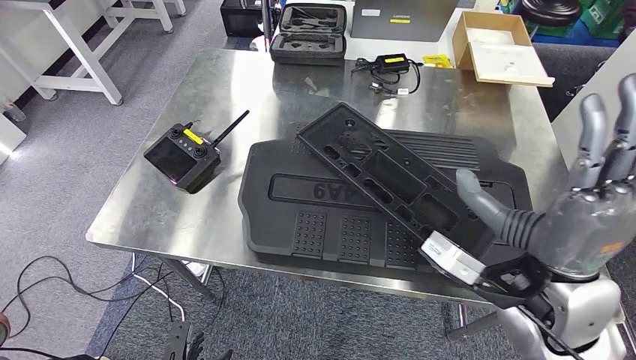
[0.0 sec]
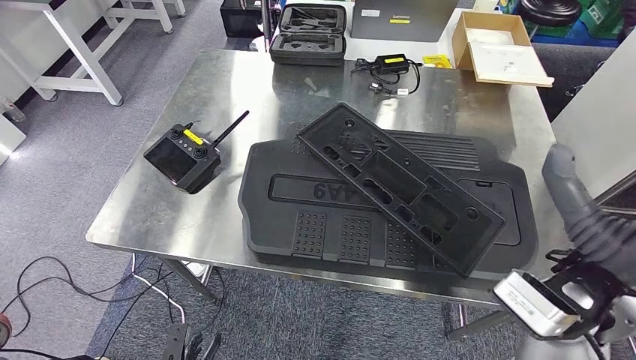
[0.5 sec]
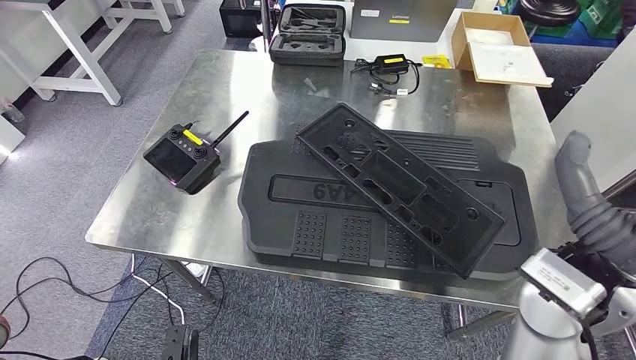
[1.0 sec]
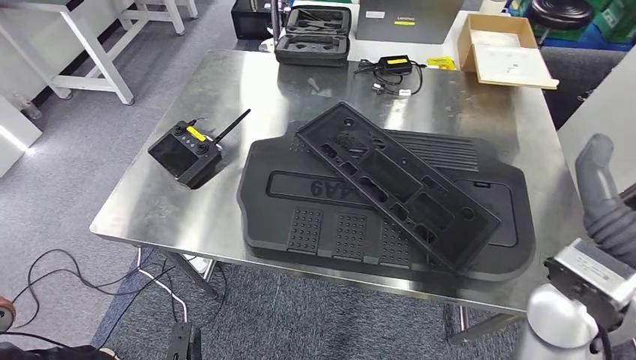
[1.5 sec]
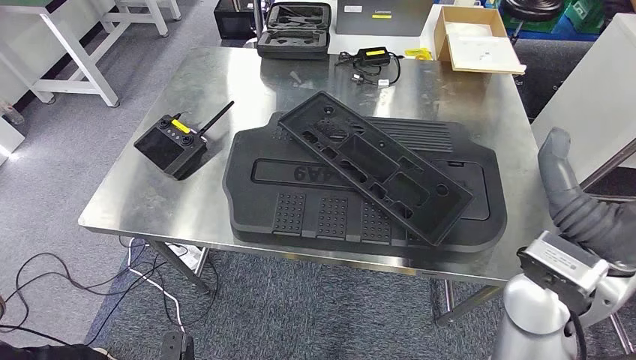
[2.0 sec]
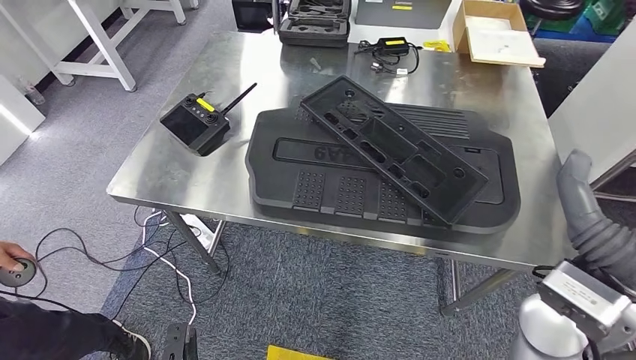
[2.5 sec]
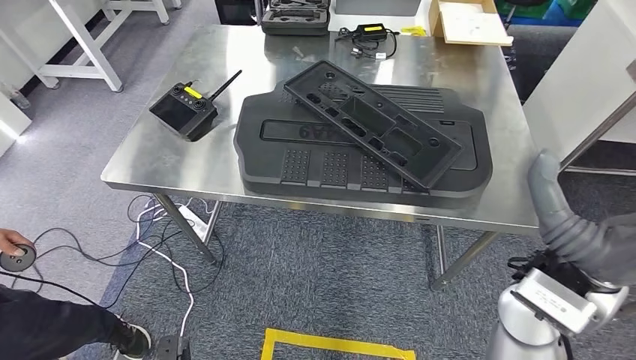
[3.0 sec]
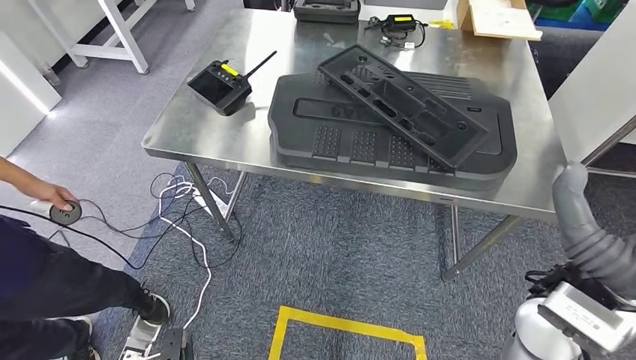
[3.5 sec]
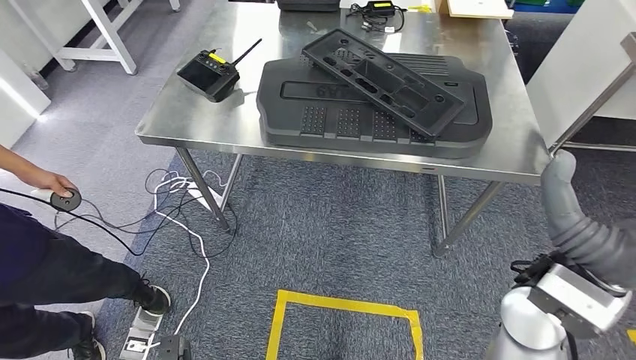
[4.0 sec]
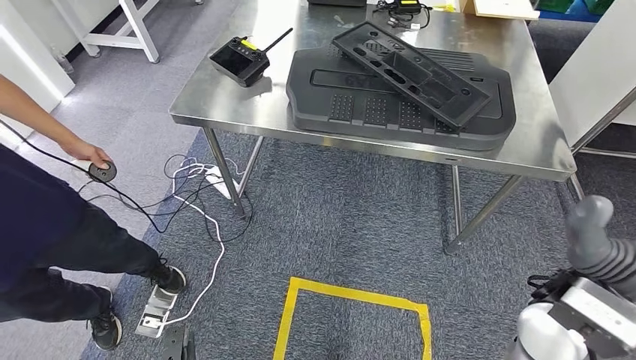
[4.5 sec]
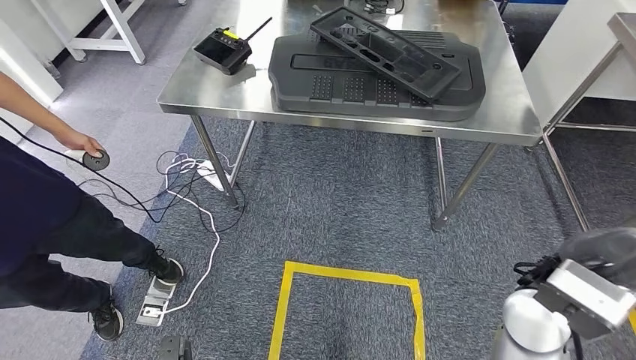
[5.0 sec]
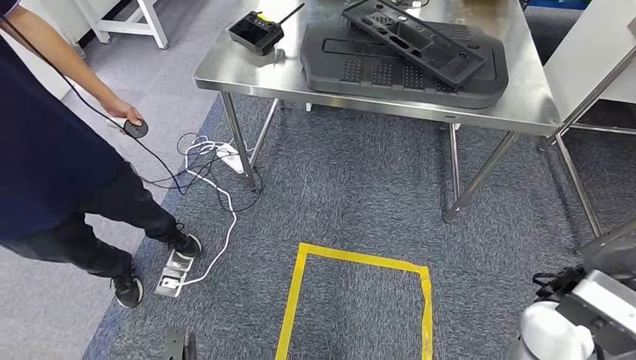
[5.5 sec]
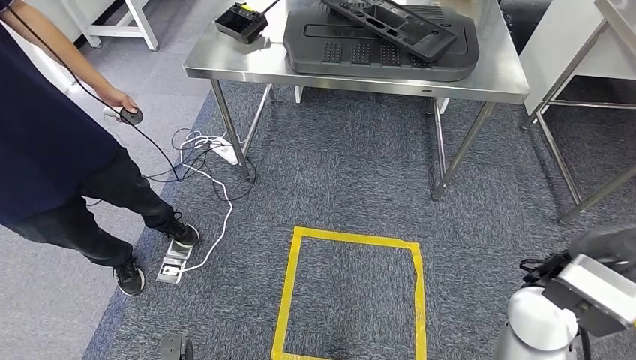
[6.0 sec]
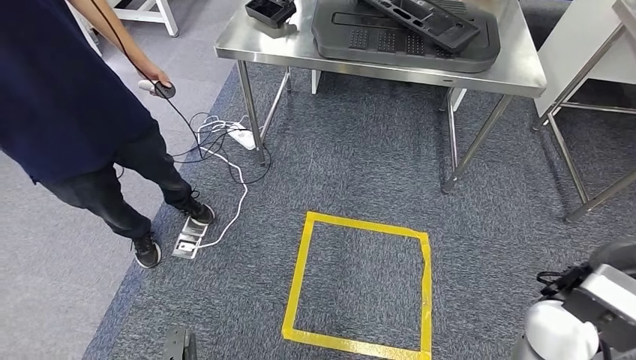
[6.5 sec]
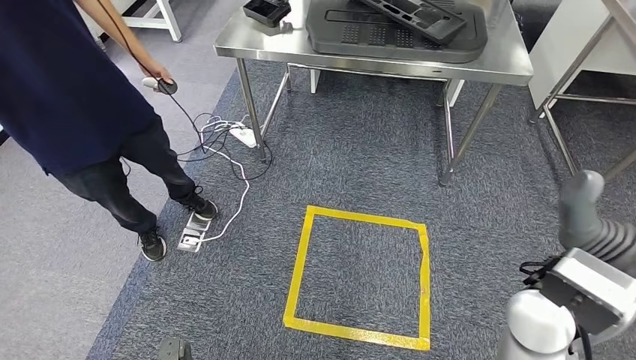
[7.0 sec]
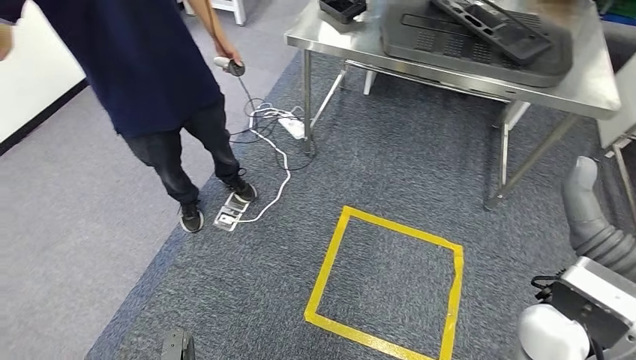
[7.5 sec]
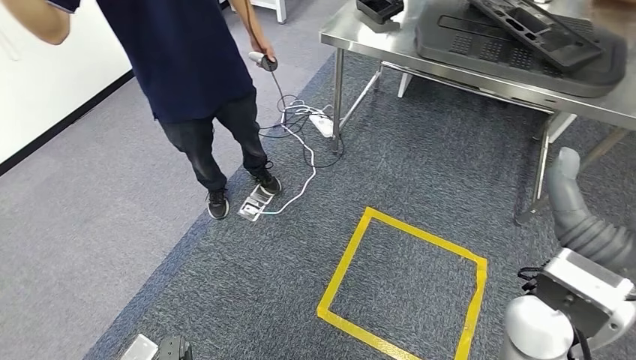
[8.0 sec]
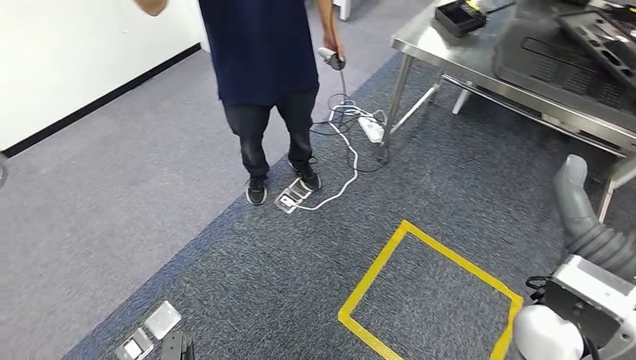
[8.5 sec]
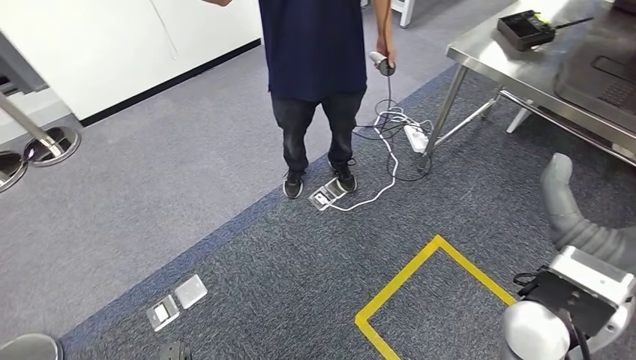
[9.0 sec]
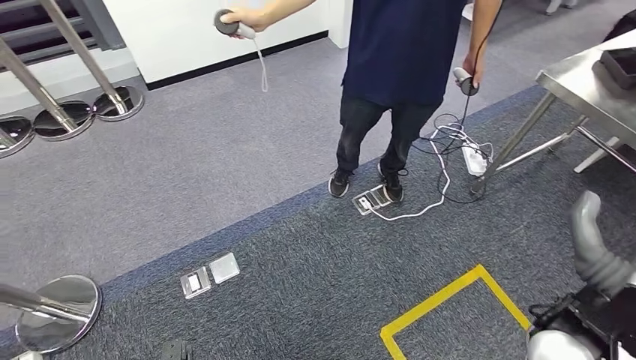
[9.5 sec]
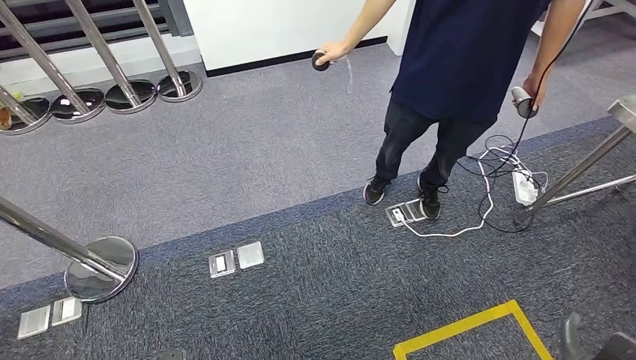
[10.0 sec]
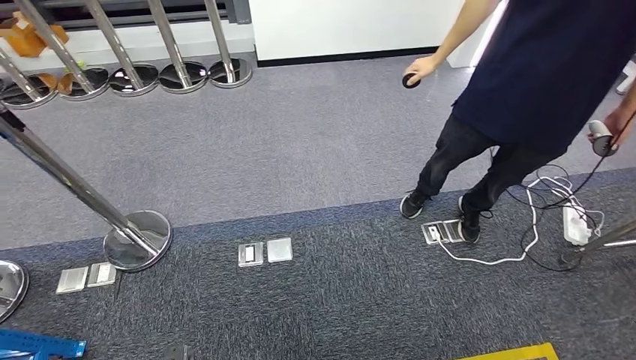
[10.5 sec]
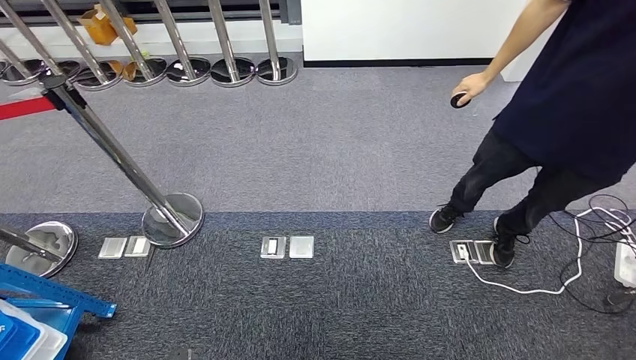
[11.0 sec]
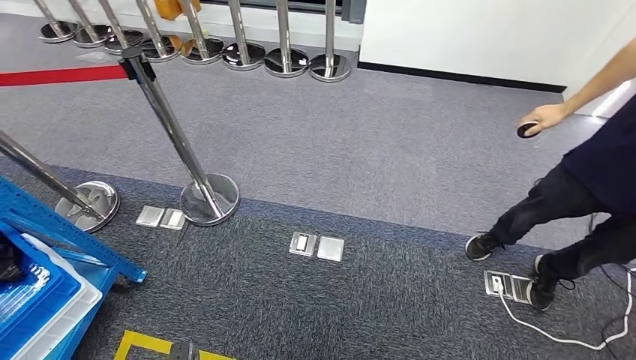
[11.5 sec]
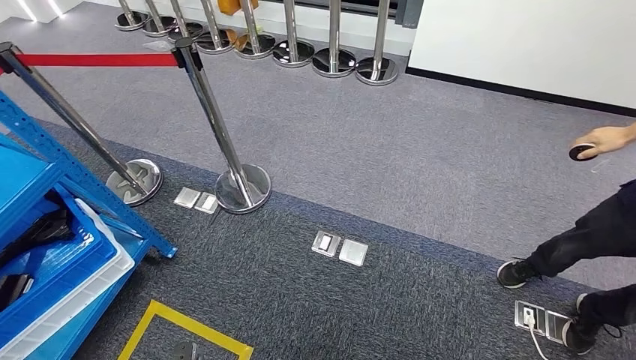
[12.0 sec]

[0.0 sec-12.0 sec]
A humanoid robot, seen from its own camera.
Step, 0.0 sec to 3.0 sec: Insert the large material into the corresponding slot on the workbench.

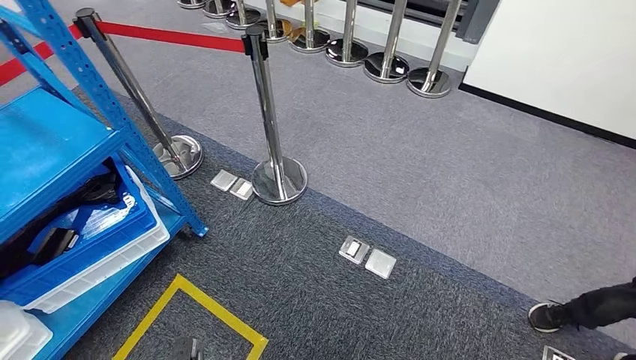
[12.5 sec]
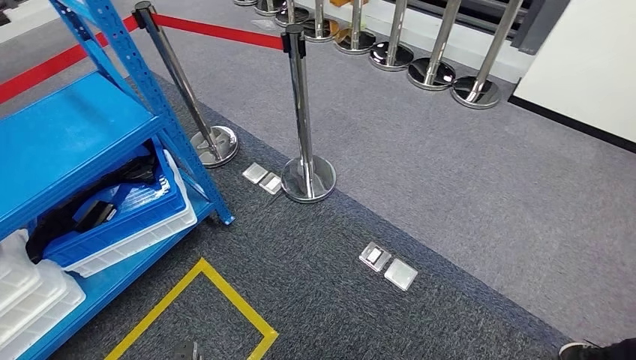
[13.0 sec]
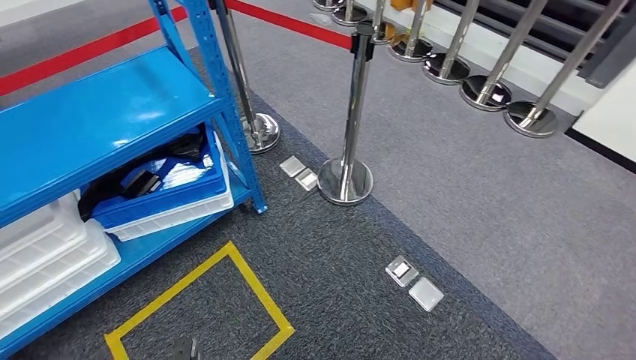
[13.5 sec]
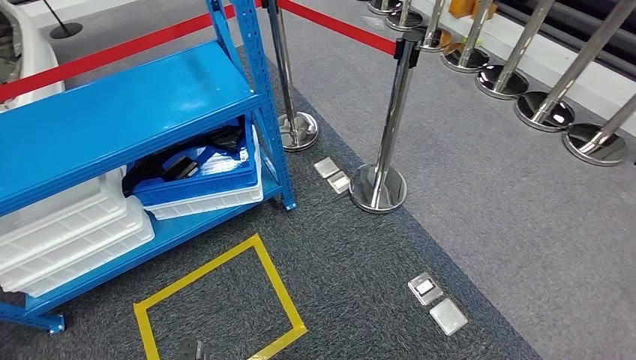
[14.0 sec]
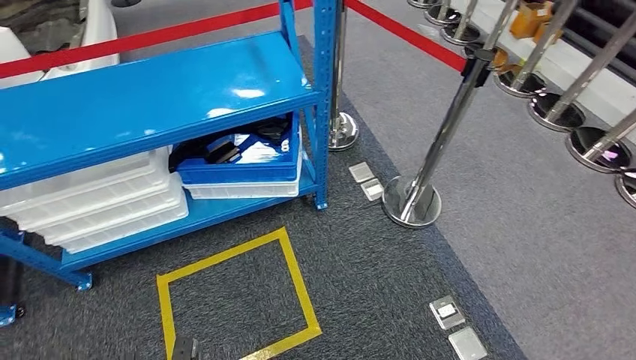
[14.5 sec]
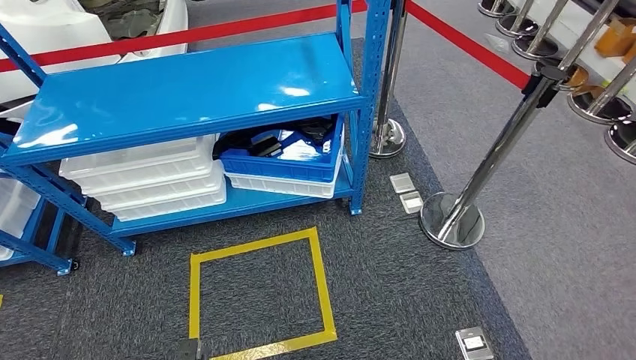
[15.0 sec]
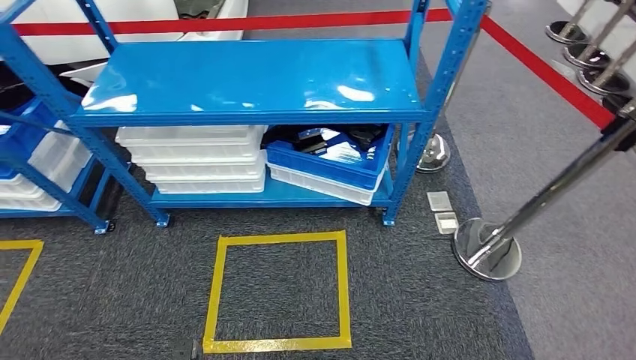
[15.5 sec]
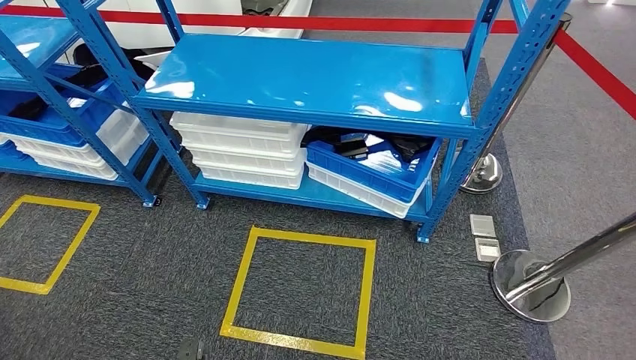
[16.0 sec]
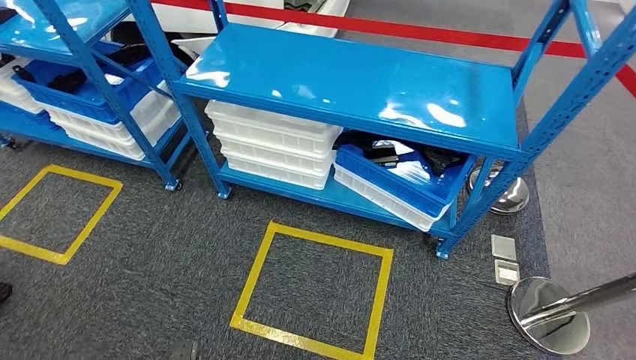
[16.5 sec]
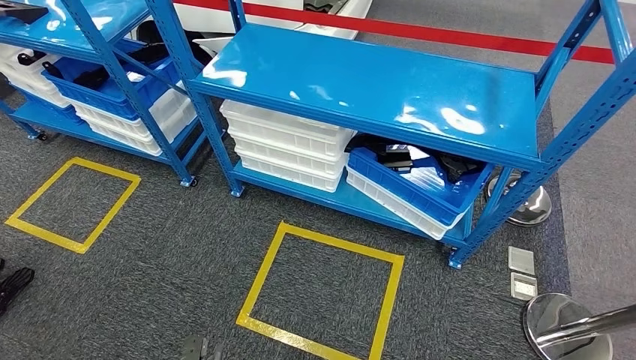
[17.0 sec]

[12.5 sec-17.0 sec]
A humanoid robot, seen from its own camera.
Step, 12.5 sec to 17.0 sec: Move to the initial position of the shelf.
